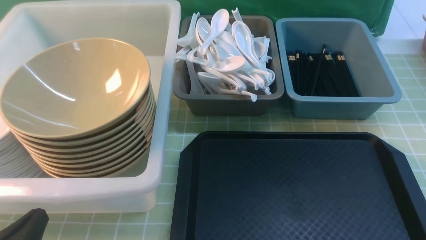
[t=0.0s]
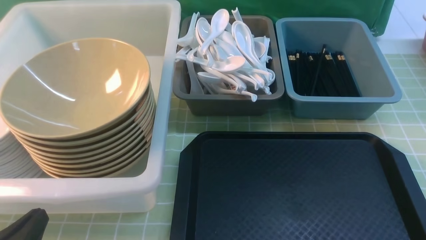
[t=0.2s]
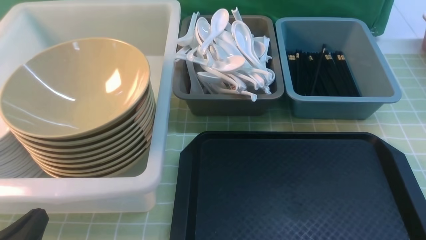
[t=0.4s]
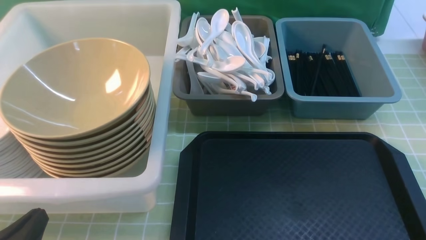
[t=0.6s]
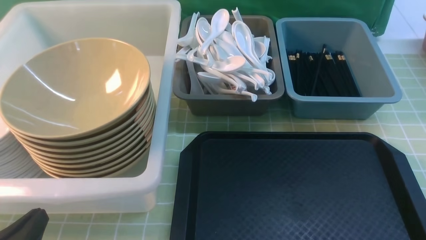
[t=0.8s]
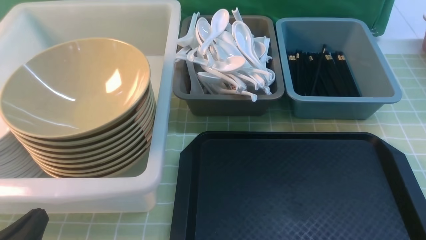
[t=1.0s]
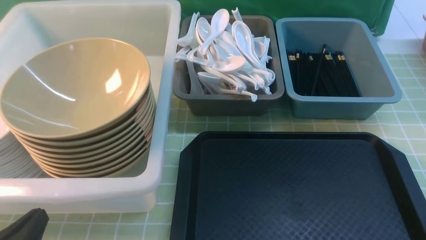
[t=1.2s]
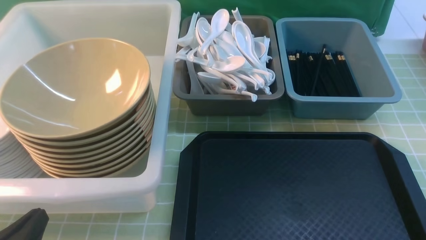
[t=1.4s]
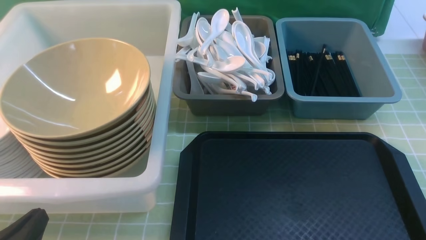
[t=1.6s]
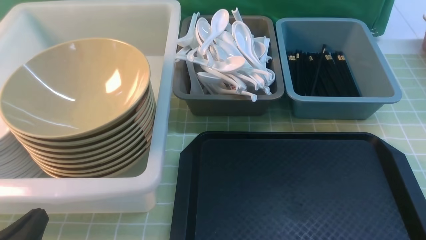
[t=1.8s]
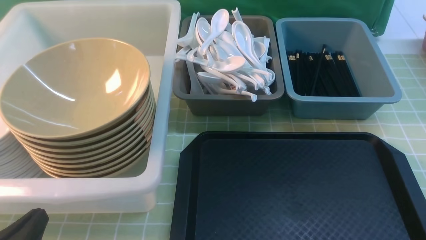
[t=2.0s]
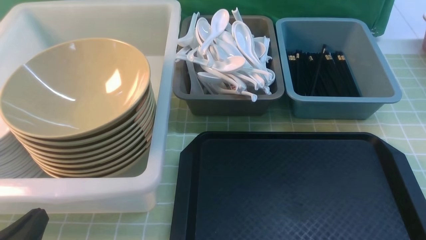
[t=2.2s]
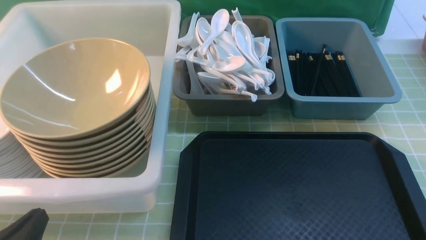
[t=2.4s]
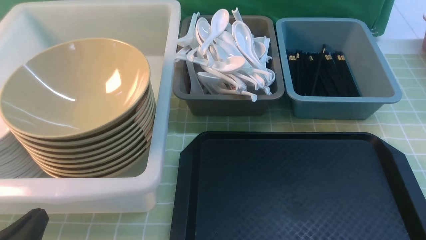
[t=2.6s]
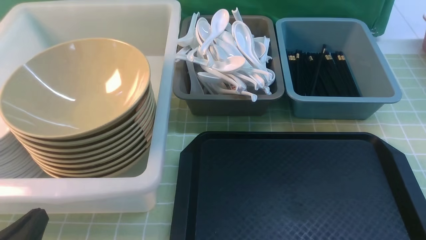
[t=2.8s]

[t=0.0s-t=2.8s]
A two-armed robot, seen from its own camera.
Task of the whole recording: on green table put chopsticks spoon bowls plates into blue grey white boxes.
t=1.4s to t=2.8s: Neither gripper changes place.
